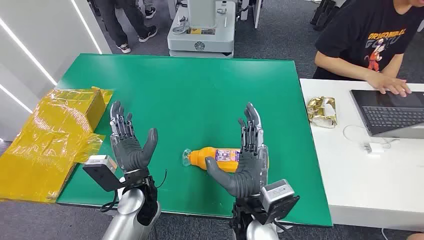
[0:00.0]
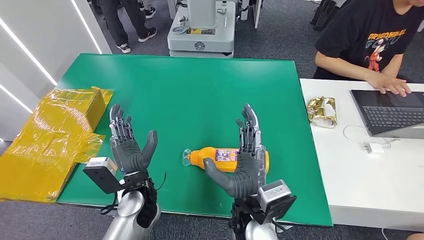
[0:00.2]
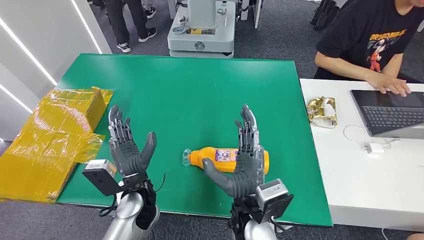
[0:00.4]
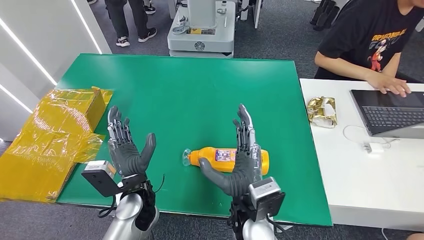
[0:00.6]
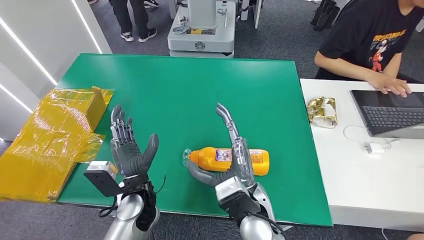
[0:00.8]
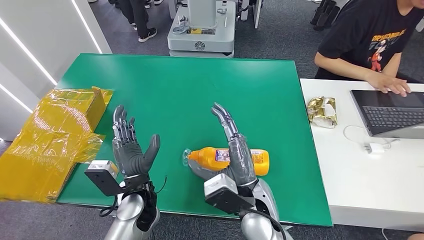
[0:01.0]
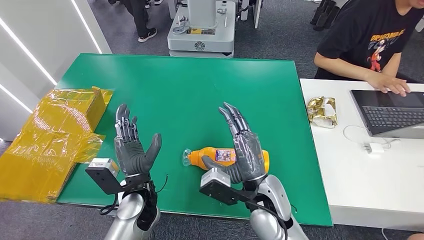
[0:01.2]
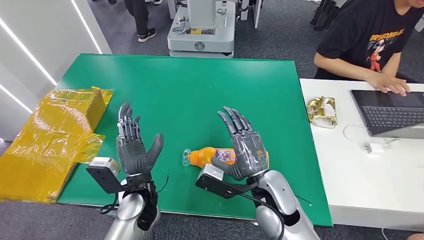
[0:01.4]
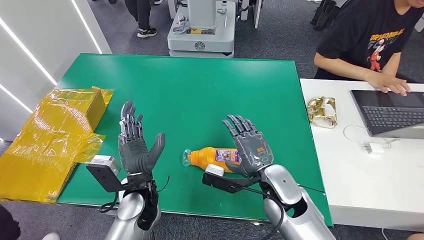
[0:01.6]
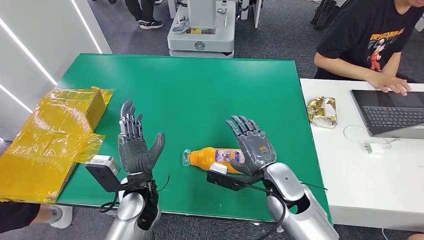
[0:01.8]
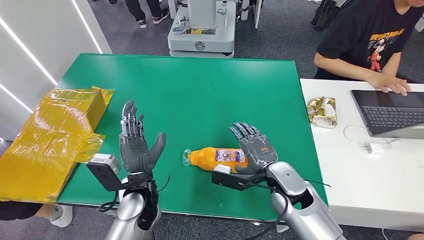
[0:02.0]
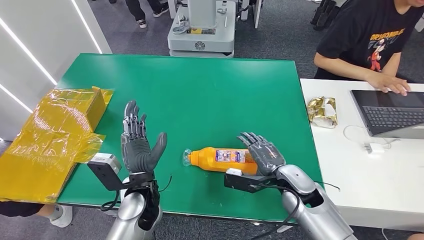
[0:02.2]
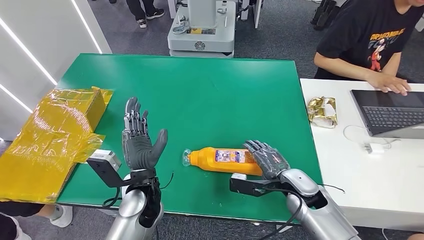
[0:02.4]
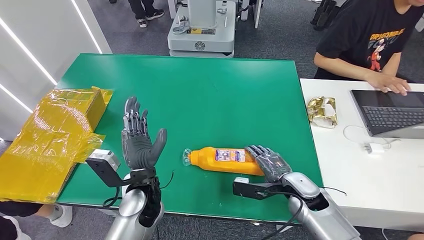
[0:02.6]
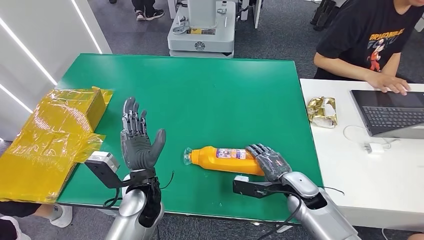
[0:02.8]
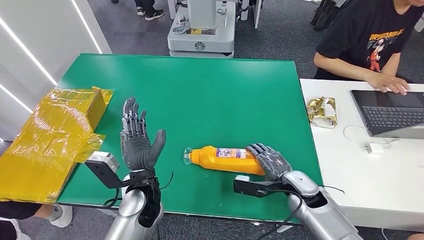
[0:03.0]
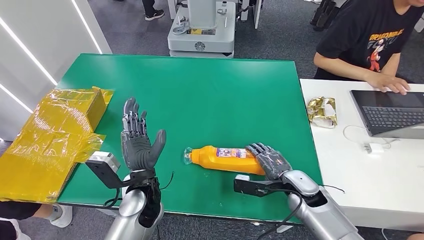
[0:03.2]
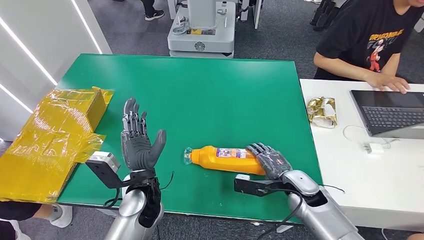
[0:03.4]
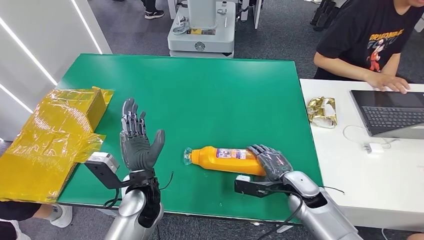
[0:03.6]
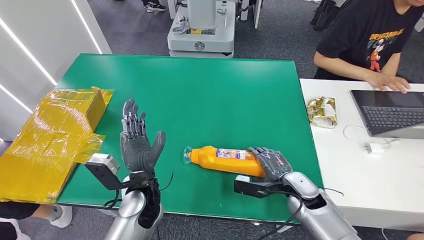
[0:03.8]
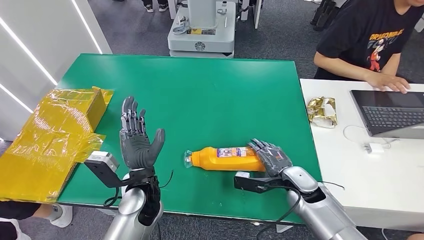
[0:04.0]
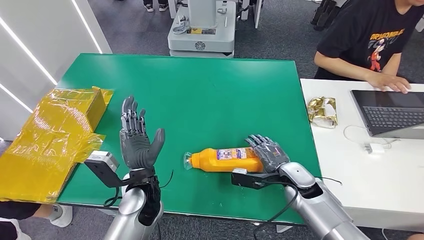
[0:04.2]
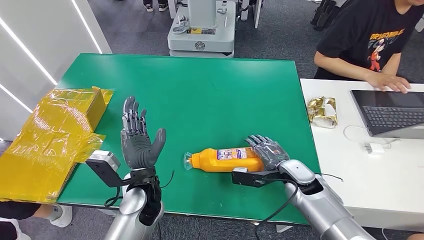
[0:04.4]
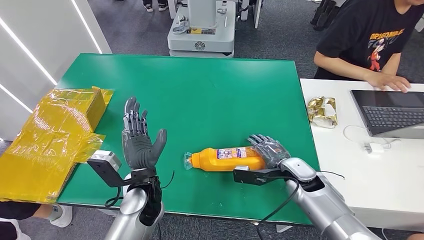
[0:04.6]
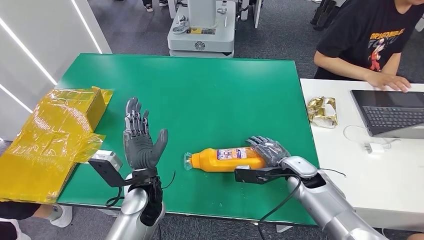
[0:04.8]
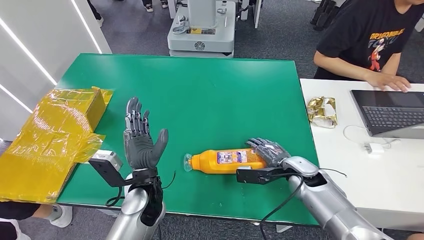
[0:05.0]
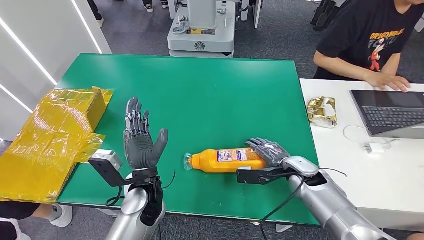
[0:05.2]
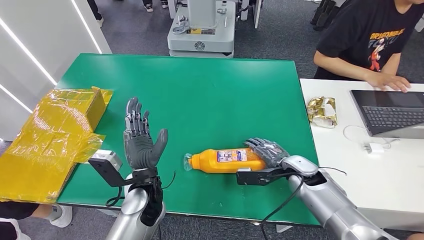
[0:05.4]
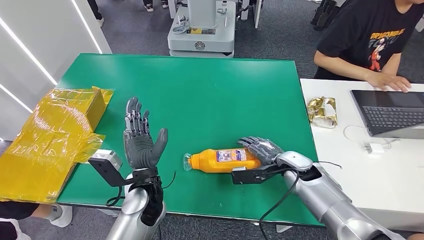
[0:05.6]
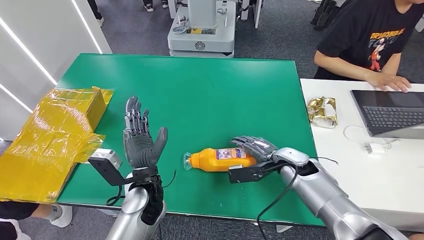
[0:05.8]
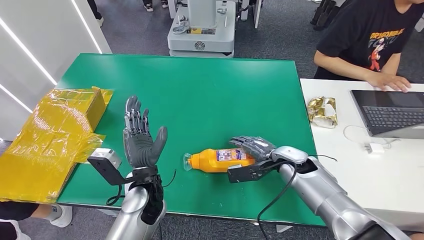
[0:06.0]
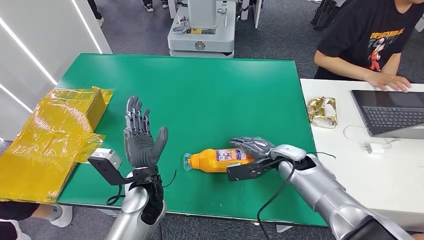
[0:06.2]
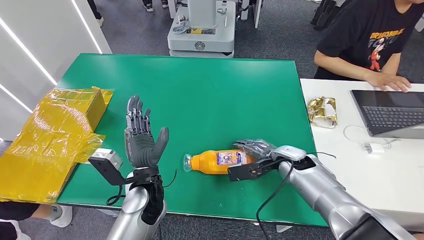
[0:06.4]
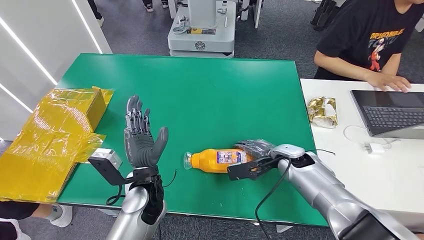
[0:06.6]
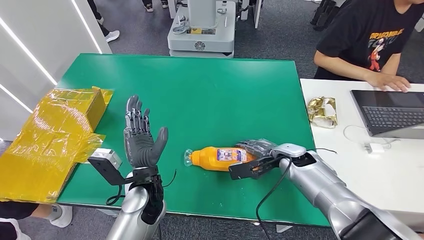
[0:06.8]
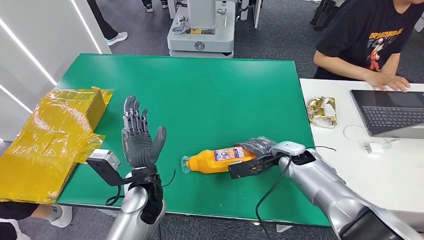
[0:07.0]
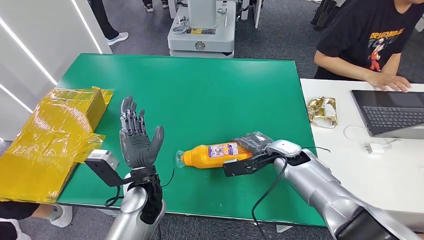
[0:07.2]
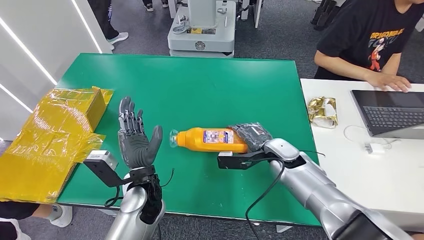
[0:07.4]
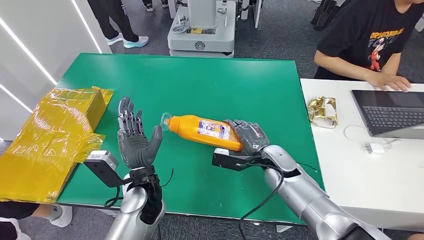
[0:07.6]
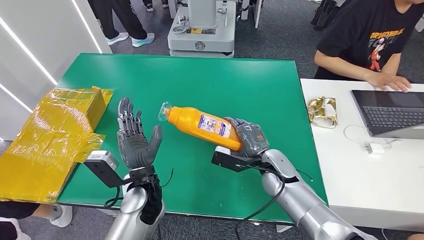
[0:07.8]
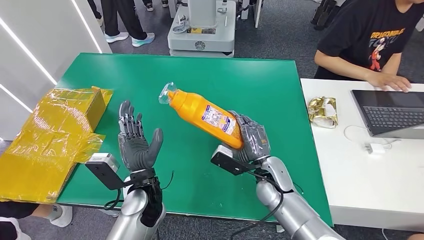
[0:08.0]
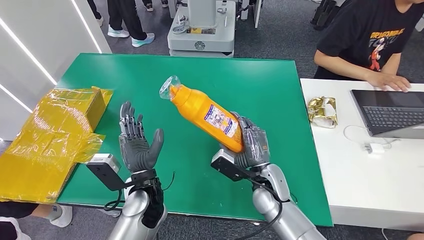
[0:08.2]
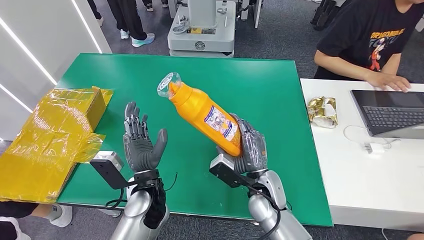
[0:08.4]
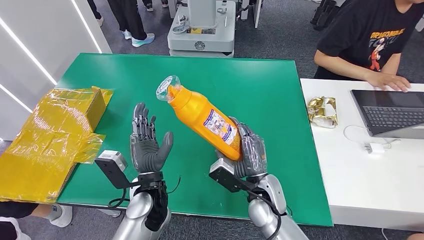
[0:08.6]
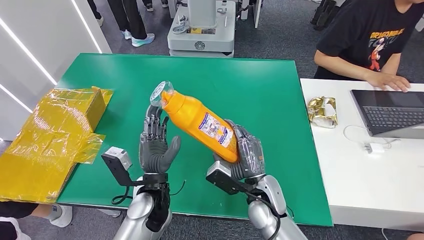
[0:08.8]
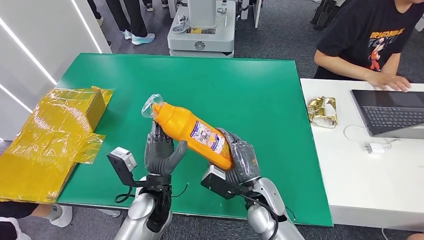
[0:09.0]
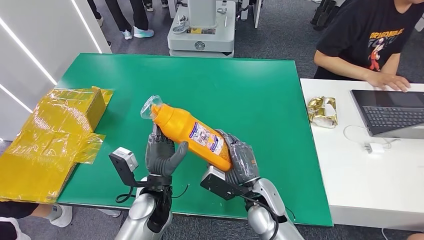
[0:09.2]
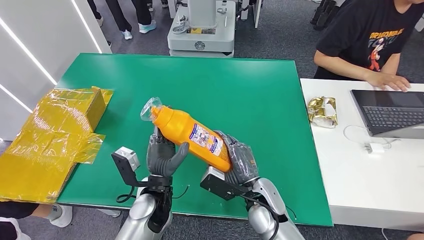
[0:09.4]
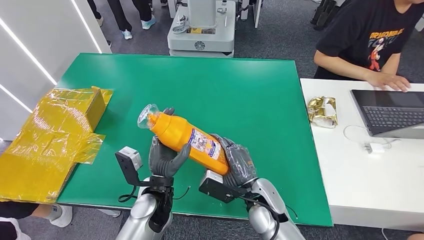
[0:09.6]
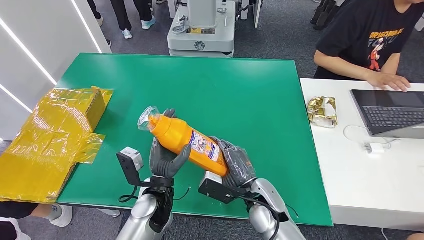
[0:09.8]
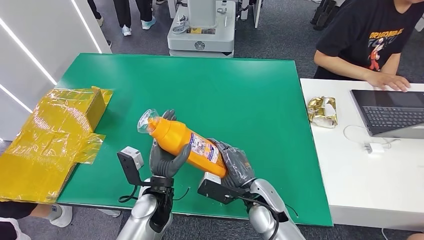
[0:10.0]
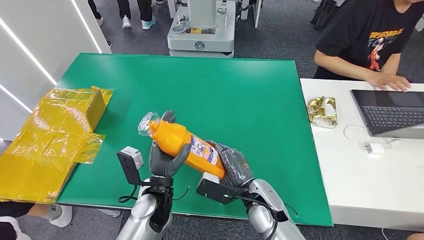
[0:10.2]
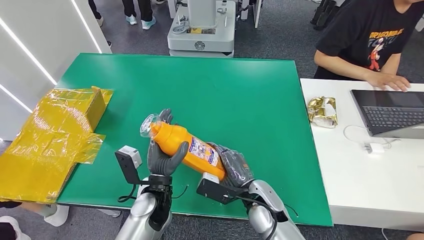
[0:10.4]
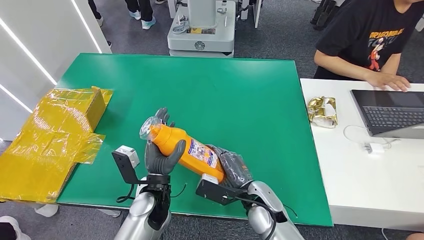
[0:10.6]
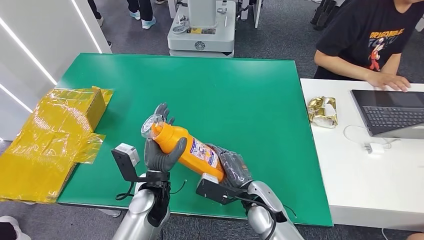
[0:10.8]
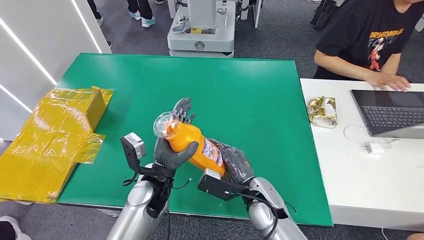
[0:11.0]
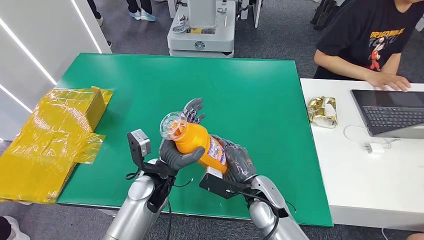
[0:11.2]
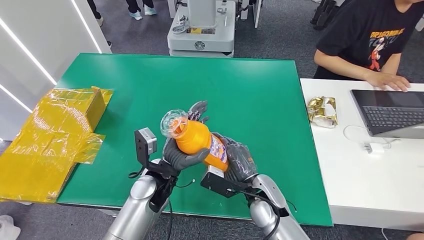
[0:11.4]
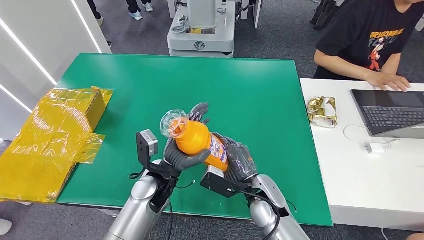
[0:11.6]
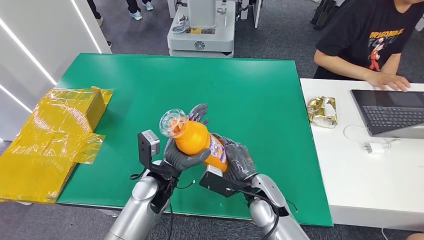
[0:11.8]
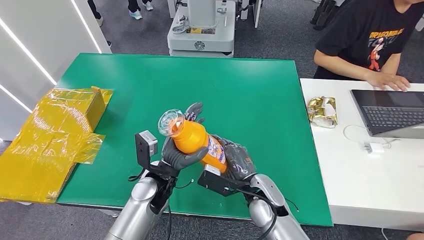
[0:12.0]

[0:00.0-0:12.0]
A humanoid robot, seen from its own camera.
Step, 0:00.0 to 0:07.8: Pick up the bottle from the table.
0:01.6 to 0:03.0: The right hand travels to the right and downward by approximately 10 cm.
0:03.0 to 0:04.4: The hands stay close to where they were, moving slightly.
0:04.4 to 0:06.0: There are only small adjustments of the hands.
0:07.6 to 0:09.0: The right hand heads backward and to the left, covering about 10 cm.
0:09.0 to 0:10.4: There are only small adjustments of the hands.

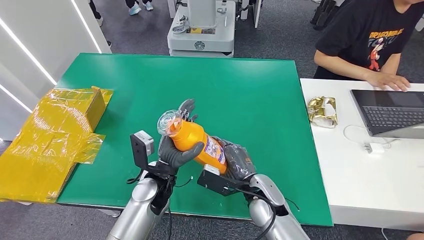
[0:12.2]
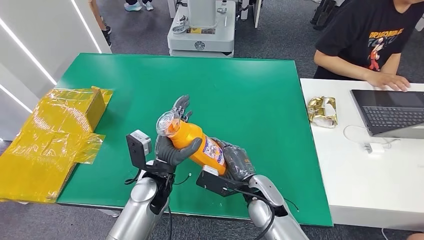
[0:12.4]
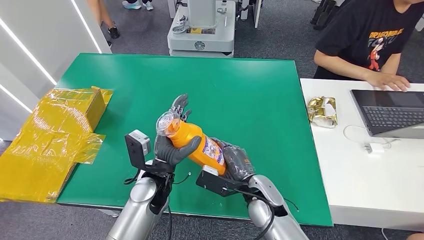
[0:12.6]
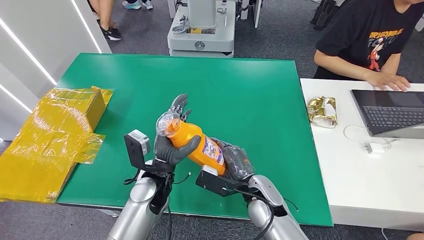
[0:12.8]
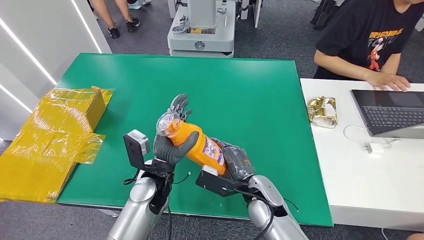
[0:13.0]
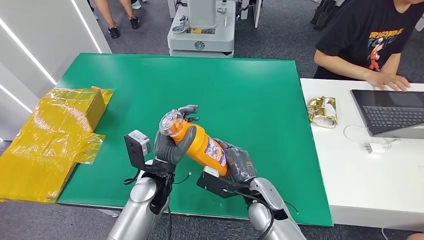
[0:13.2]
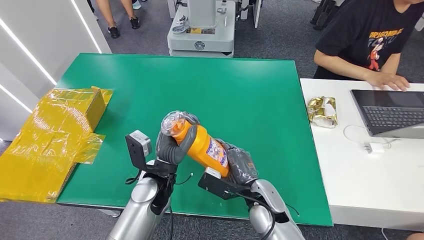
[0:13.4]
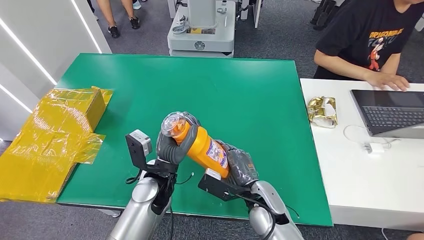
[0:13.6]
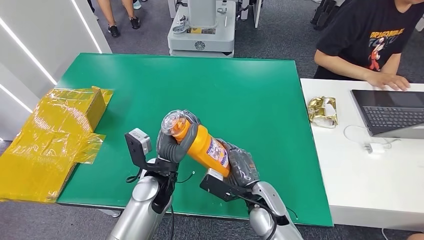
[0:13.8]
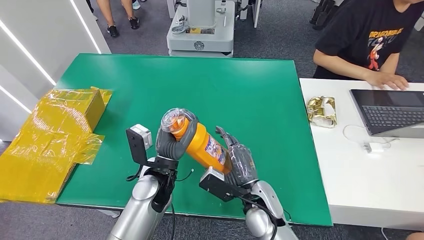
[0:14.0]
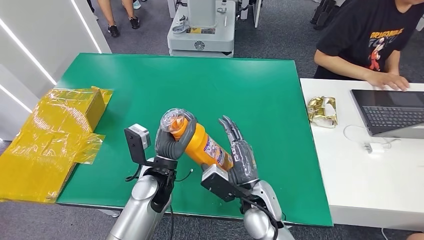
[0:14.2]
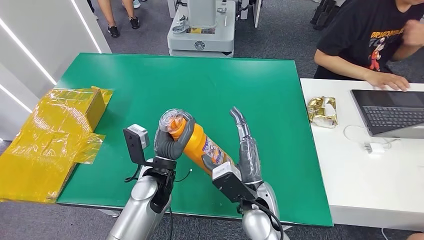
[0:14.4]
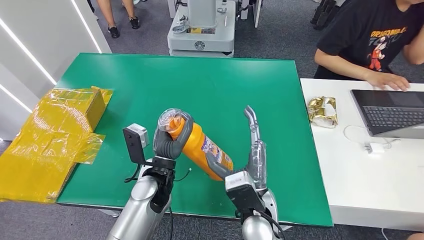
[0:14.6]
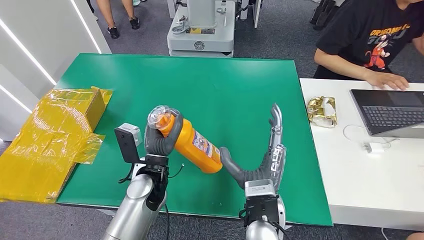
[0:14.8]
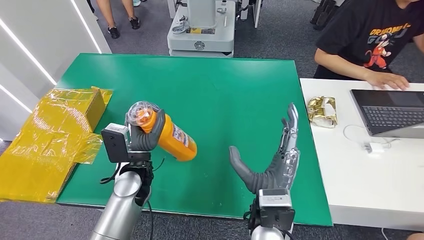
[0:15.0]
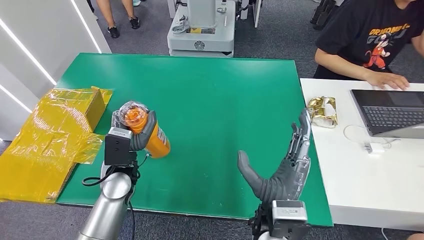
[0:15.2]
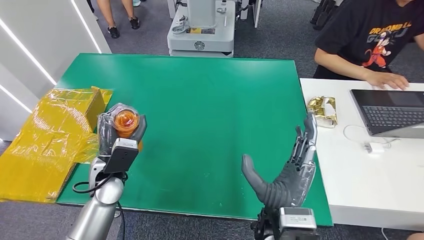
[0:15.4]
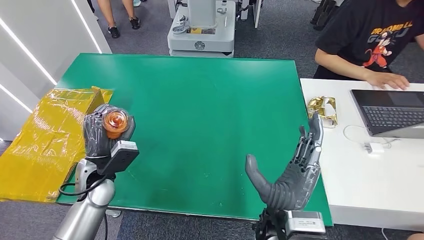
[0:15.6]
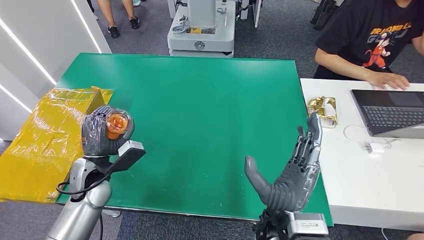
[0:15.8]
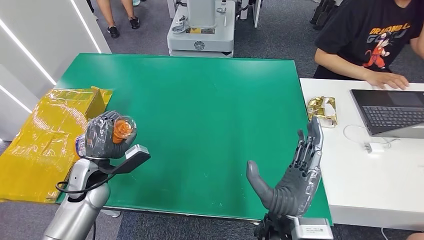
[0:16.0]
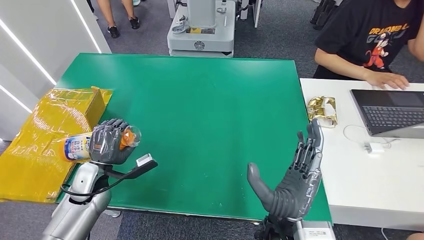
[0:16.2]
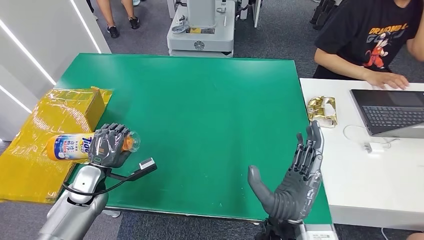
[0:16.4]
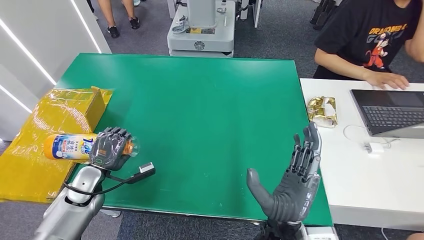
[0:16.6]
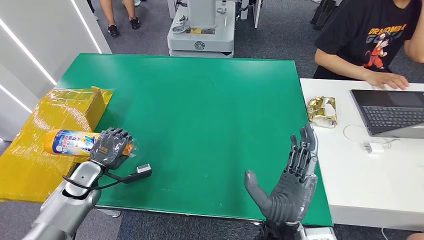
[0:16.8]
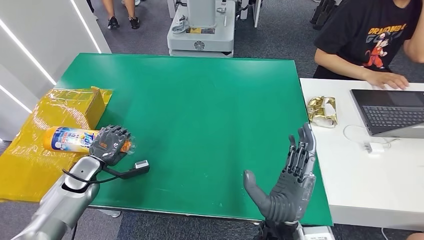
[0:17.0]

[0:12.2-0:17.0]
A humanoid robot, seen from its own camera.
0:12.2 to 0:13.8: There are only small adjustments of the hands.
0:13.8 to 0:15.4: The right hand travels upward and backward by about 10 cm; the left hand shifts roughly 15 cm to the left.
0:15.4 to 0:17.0: The left hand travels to the left and downward by some 15 cm.
